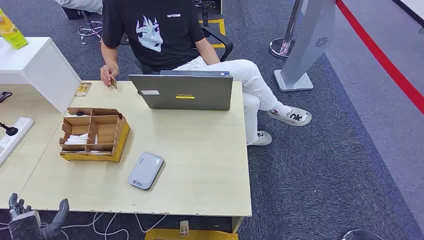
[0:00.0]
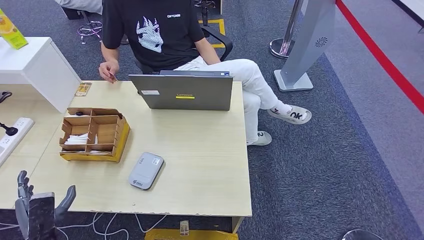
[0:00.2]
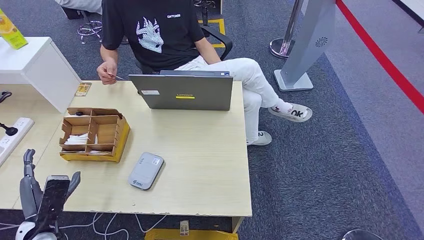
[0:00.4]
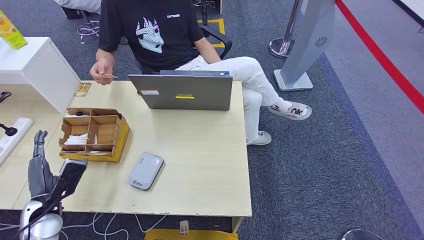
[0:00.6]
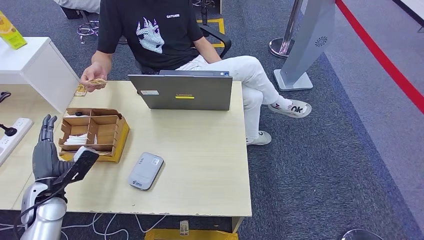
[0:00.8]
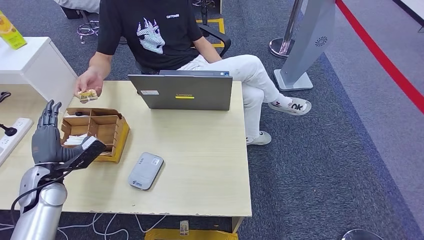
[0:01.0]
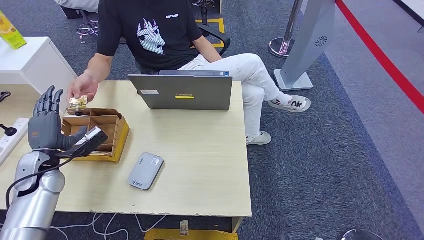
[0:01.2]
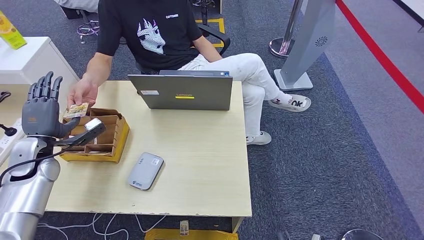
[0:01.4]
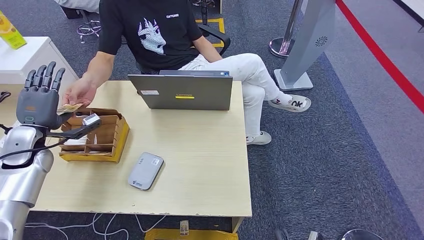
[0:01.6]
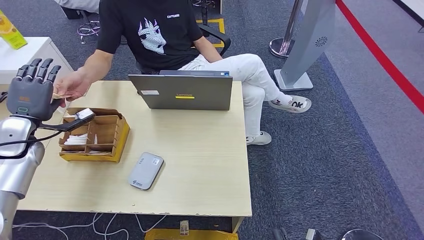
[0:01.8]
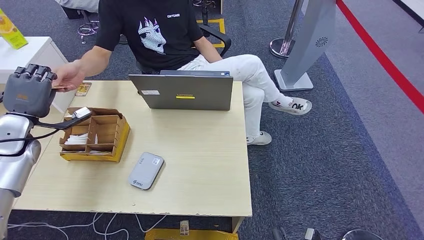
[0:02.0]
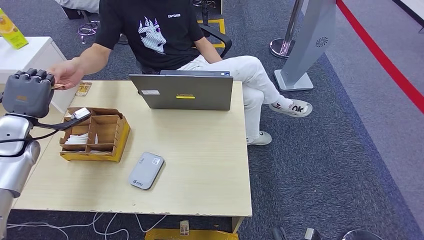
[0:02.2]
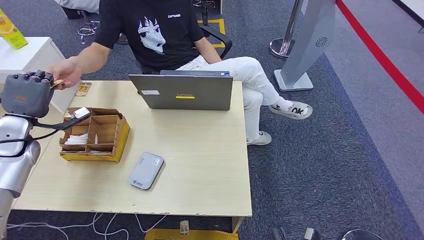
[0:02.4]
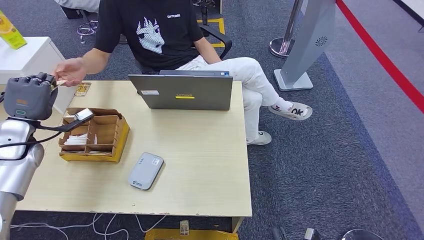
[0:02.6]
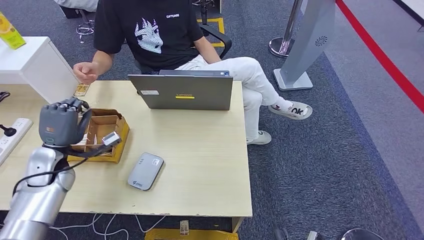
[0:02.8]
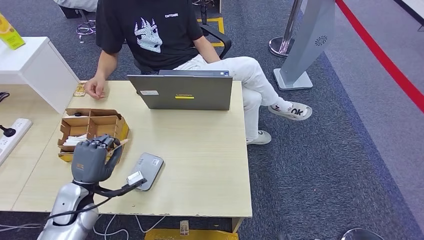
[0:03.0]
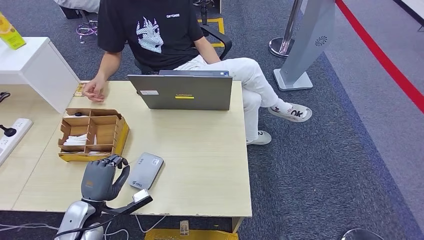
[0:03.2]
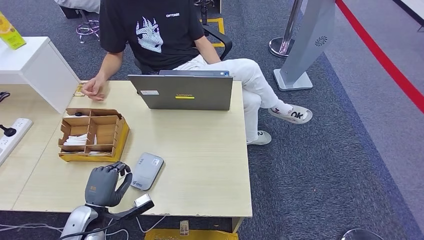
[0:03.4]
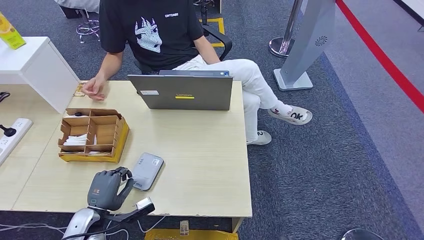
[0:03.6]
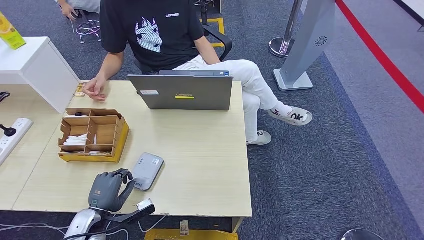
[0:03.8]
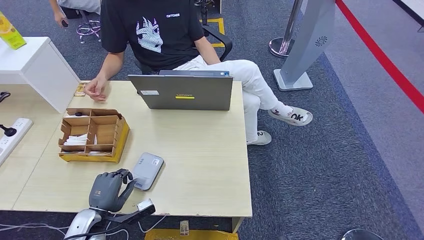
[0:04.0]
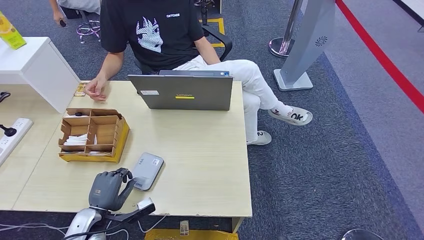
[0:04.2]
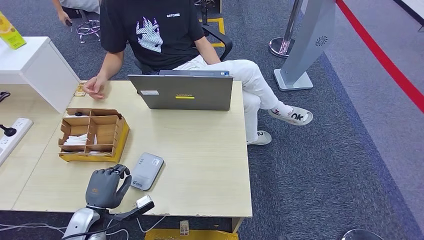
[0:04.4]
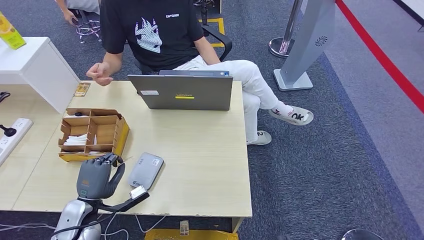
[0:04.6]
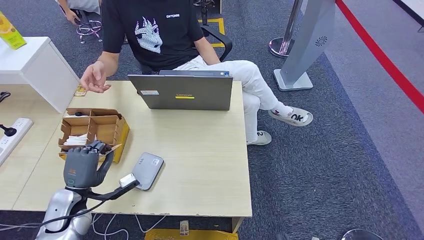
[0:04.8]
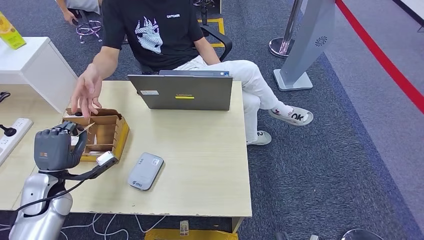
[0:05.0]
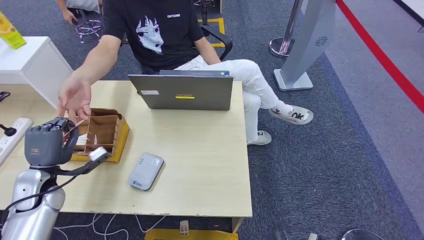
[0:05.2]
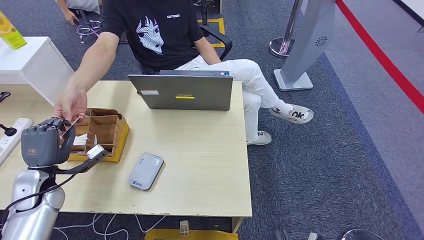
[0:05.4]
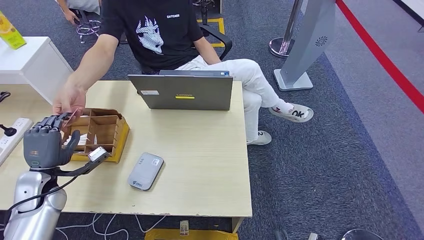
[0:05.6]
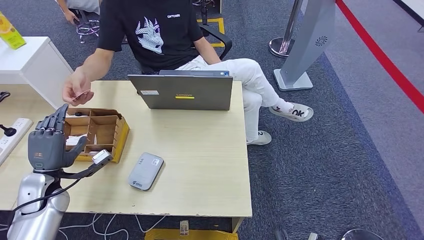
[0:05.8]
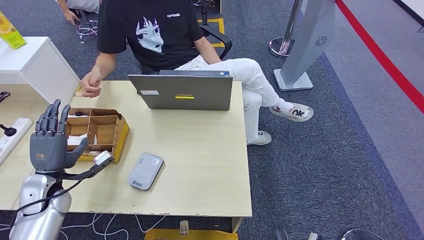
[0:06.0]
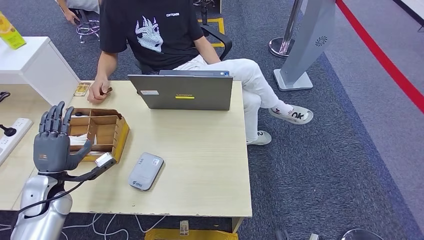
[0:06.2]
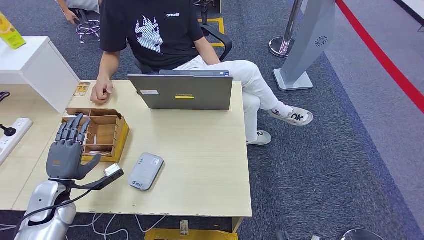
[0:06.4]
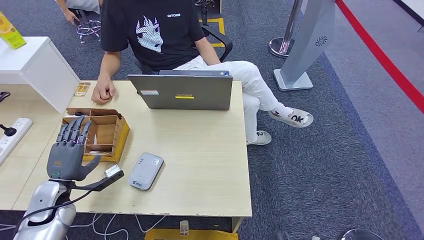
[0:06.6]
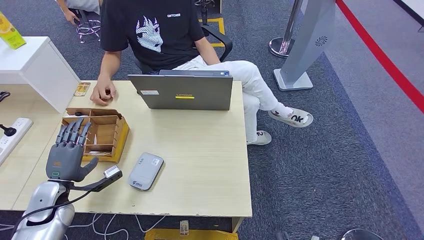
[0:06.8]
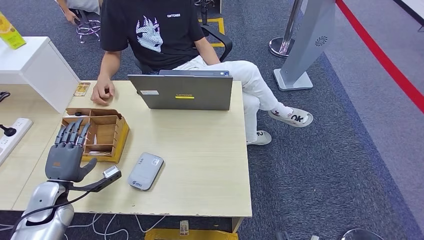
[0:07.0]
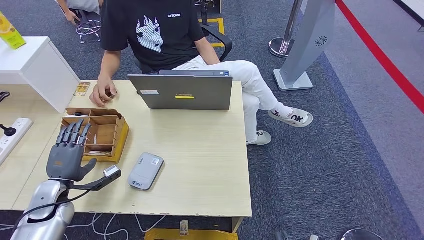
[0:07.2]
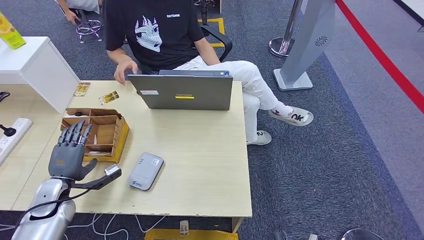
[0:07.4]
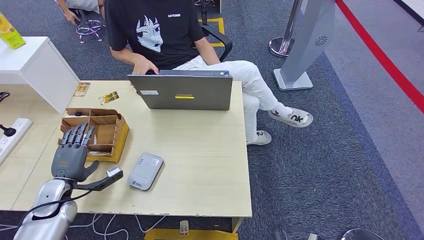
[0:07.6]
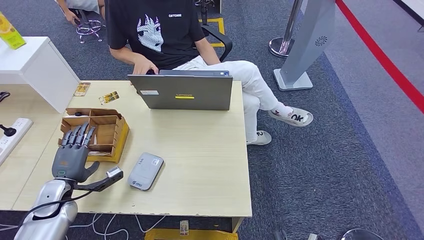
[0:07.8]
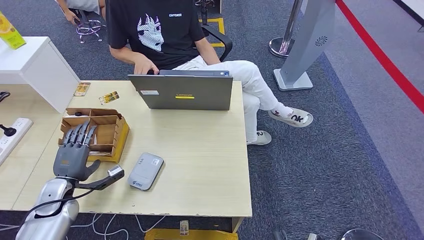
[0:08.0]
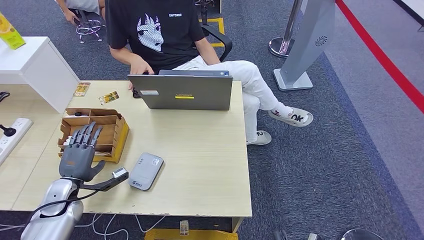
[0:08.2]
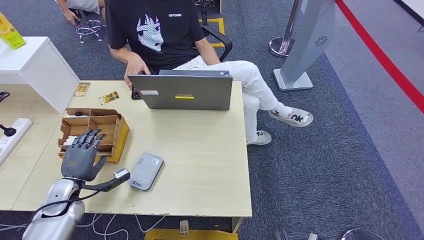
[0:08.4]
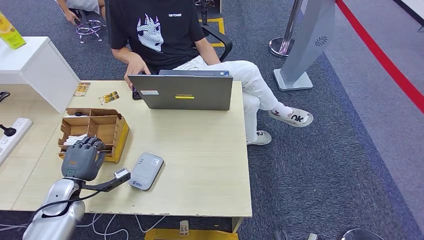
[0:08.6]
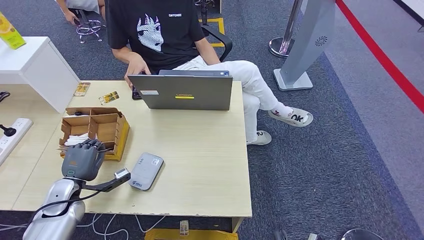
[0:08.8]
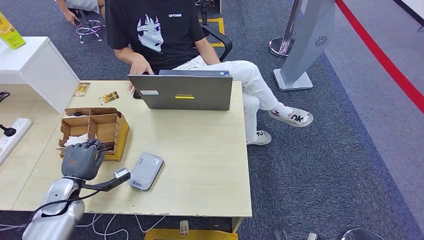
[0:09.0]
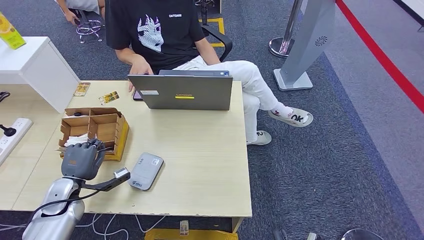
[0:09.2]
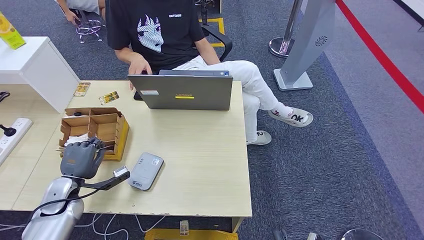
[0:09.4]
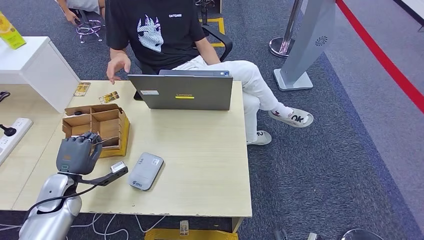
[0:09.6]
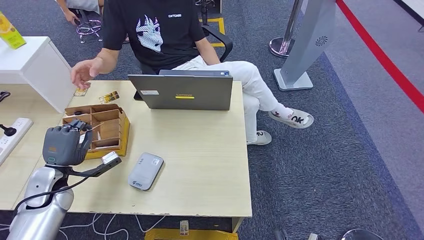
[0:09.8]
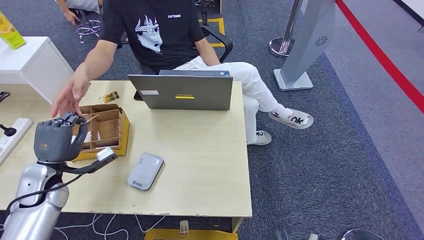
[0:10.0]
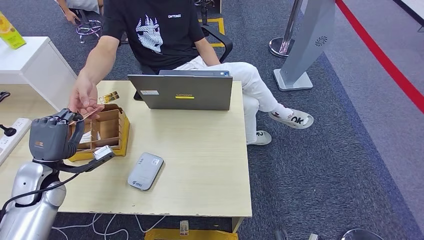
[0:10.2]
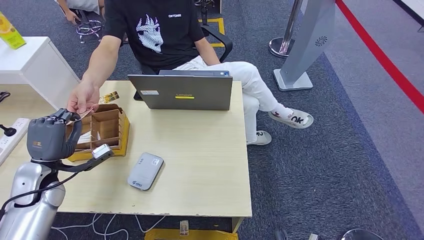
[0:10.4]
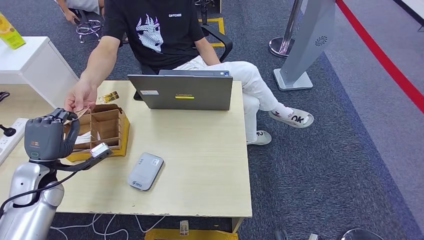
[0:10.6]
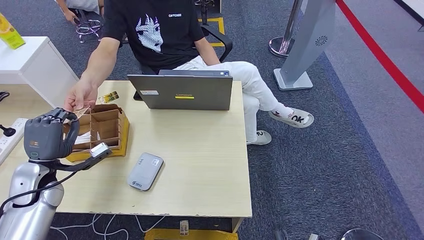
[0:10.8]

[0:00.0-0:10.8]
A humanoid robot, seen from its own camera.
Step, 0:00.0 to 0:02.2: Take the ID card from the person's hand.
Step, 0:03.0 to 0:04.4: Place the ID card on the card reader.
Step, 0:05.2 to 0:07.2: Hand the ID card to the person.
Step, 0:07.8 to 0:10.4: Pick up the room key from the key card box.
0:01.6 to 0:03.0: The left hand goes some 20 cm to the right, backward and downward.
0:04.6 to 0:06.2: The left hand travels to the left, forward and upward by roughly 10 cm.
0:07.8 to 0:09.2: The hands stay close to where they were, moving slightly.
0:09.2 to 0:10.8: The left hand travels upward by about 10 cm.

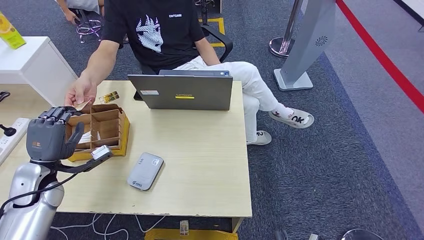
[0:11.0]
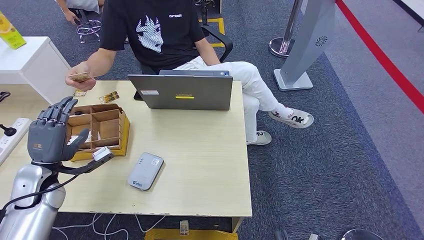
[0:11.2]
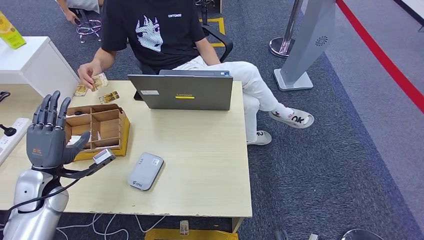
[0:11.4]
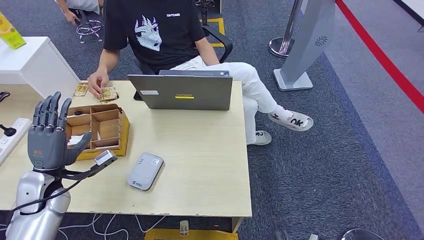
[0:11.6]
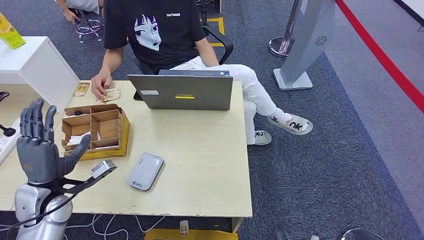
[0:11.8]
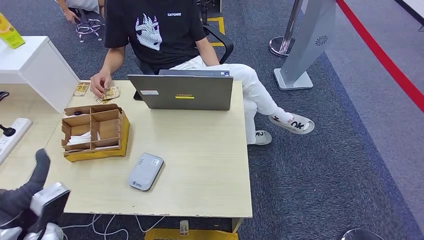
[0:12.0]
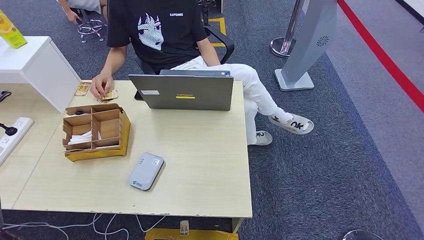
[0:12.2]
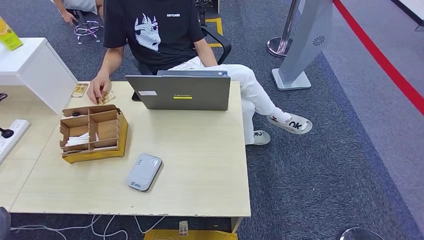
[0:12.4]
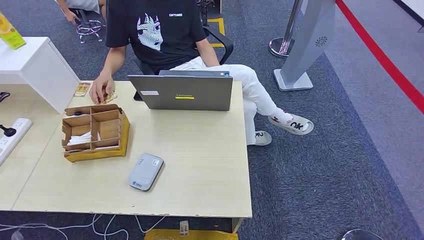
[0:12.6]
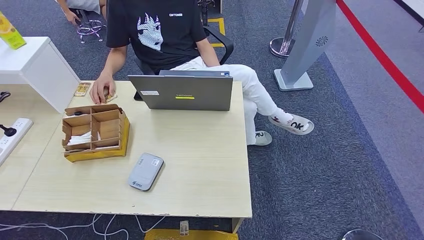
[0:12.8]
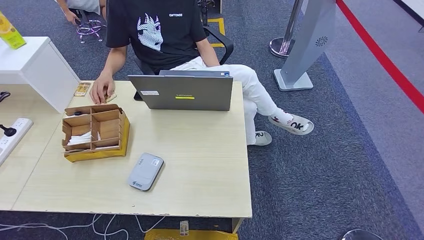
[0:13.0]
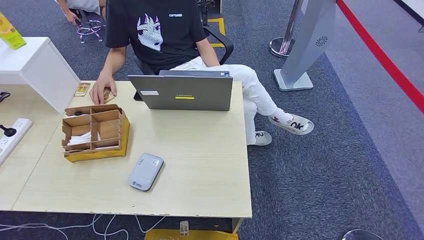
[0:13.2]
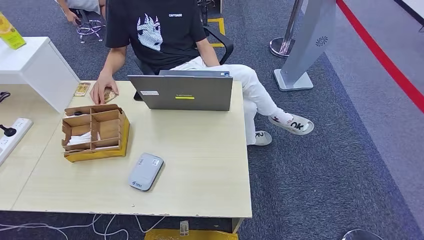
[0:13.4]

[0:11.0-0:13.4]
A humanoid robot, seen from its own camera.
Step, 0:11.2 to 0:13.2: Hand the room key to the person.
0:11.0 to 0:12.2: The left hand shifts roughly 15 cm backward.
0:12.2 to 0:13.4: The left hand is displaced downward and backward by roughly 30 cm.
